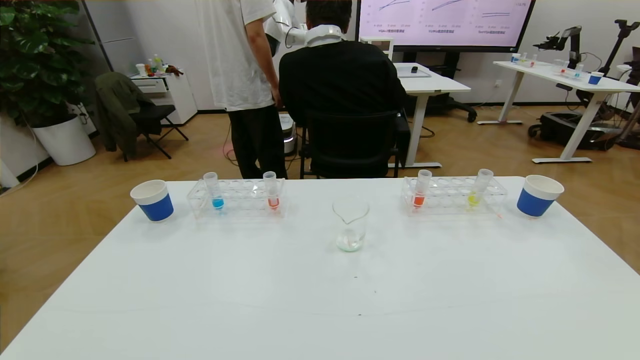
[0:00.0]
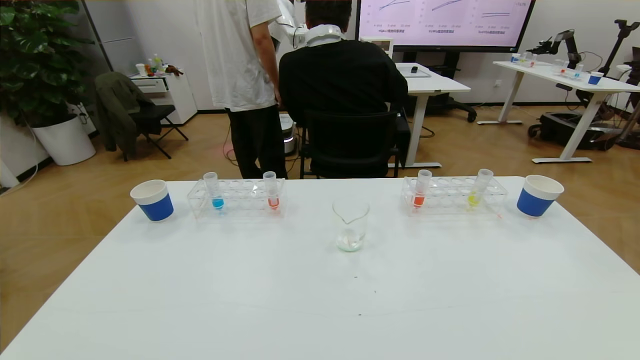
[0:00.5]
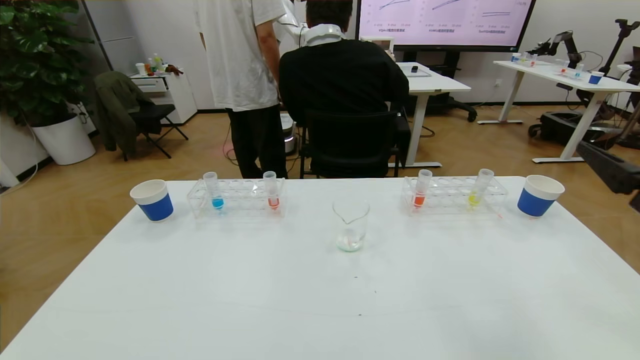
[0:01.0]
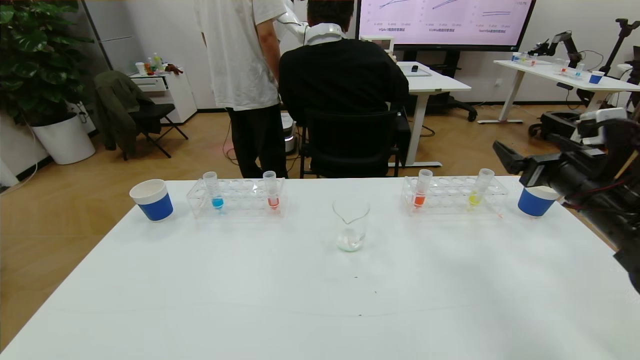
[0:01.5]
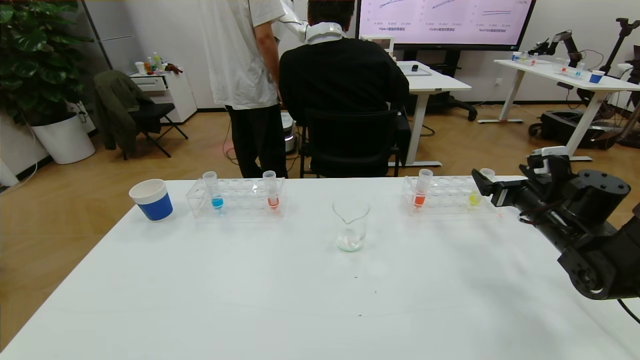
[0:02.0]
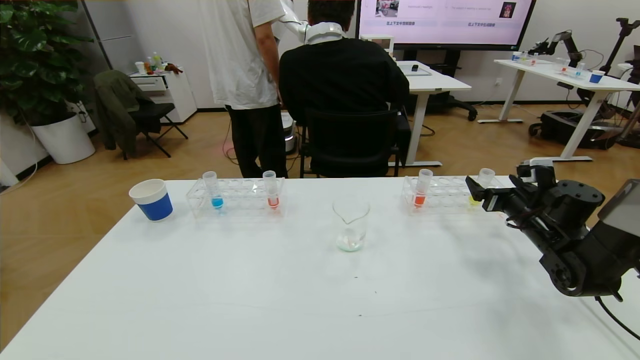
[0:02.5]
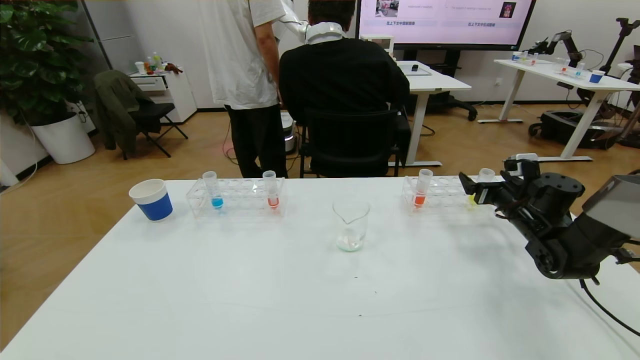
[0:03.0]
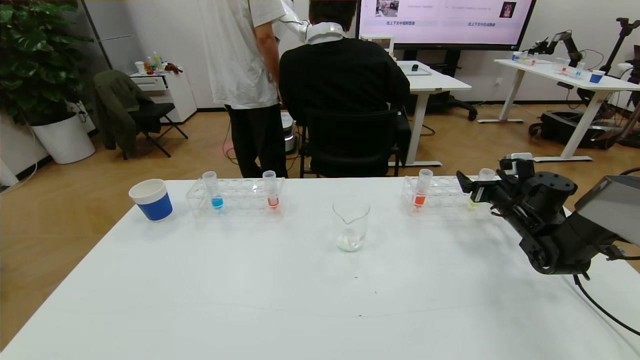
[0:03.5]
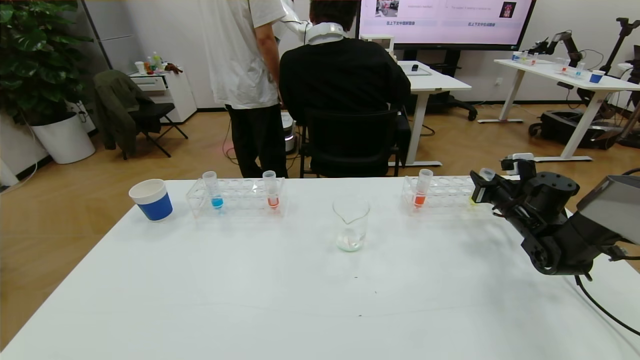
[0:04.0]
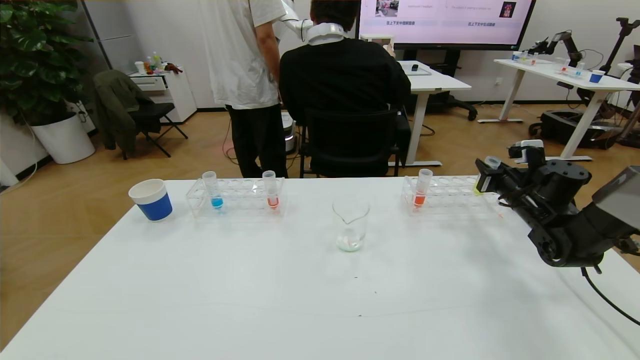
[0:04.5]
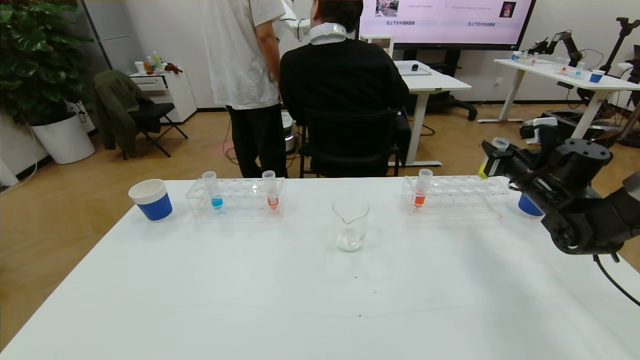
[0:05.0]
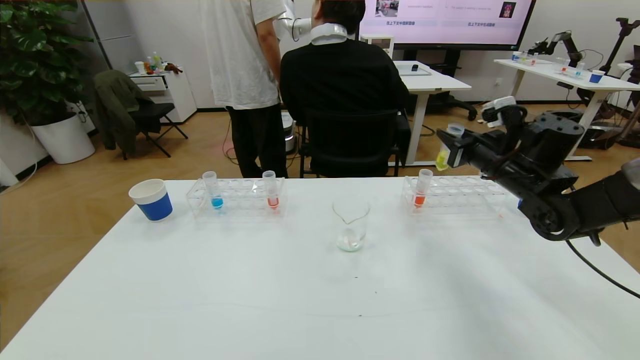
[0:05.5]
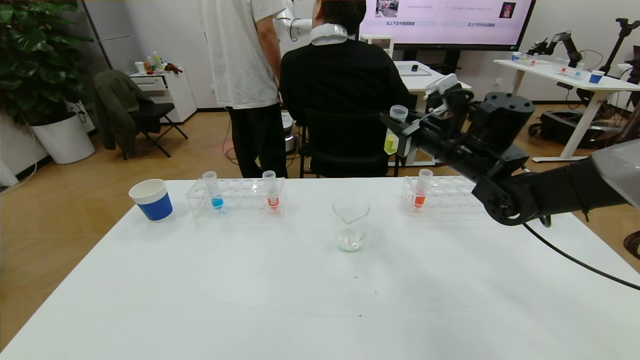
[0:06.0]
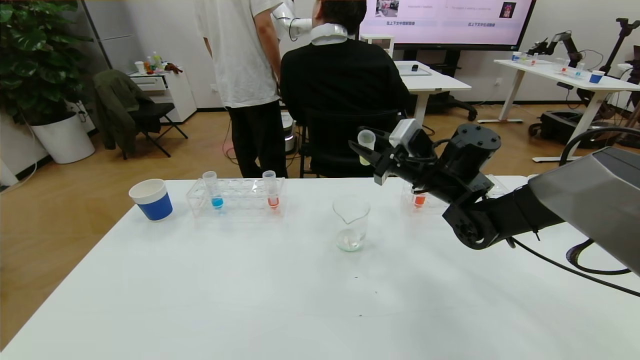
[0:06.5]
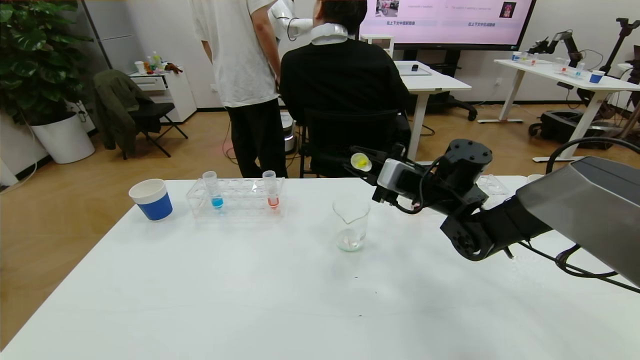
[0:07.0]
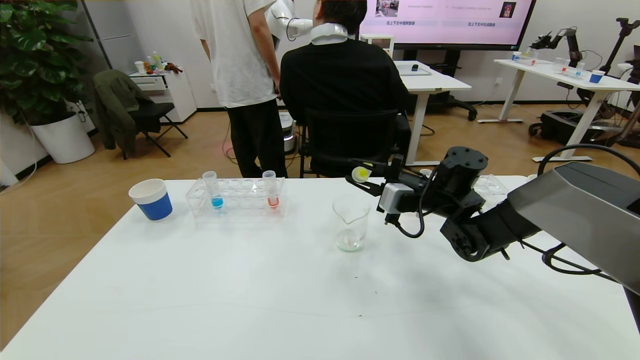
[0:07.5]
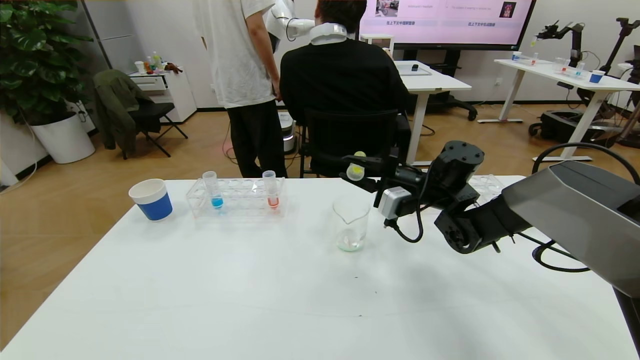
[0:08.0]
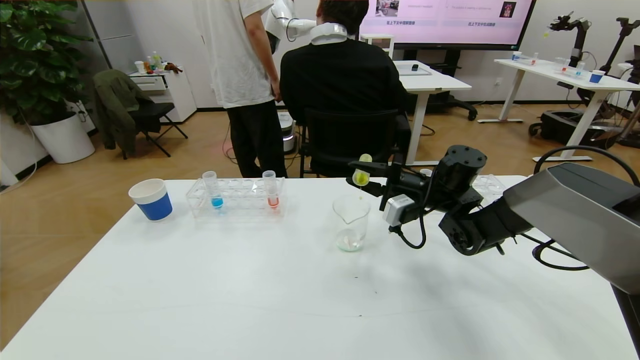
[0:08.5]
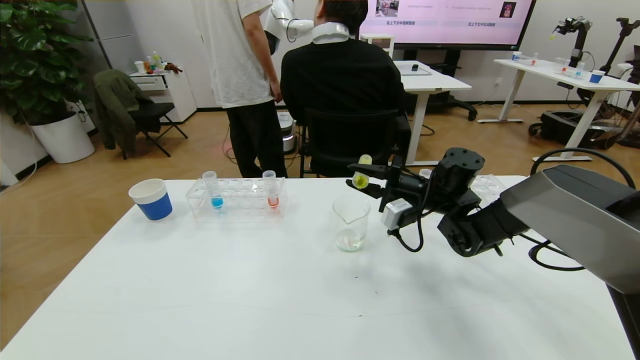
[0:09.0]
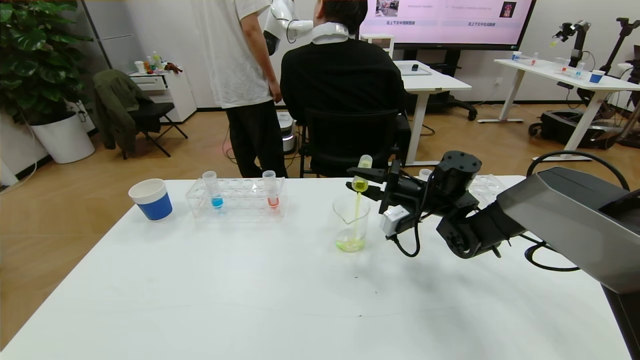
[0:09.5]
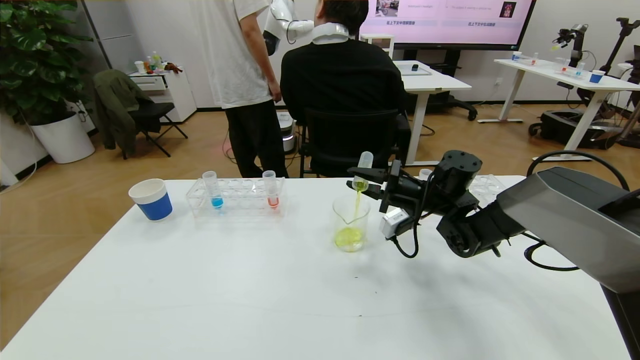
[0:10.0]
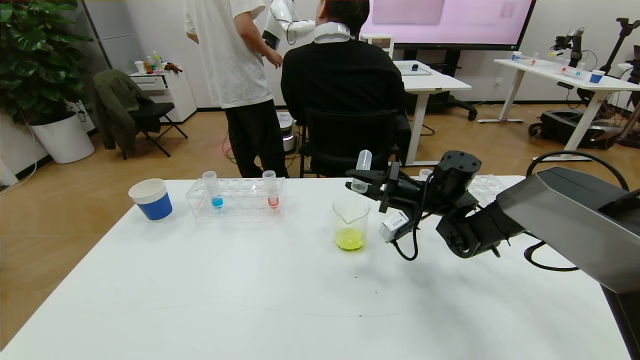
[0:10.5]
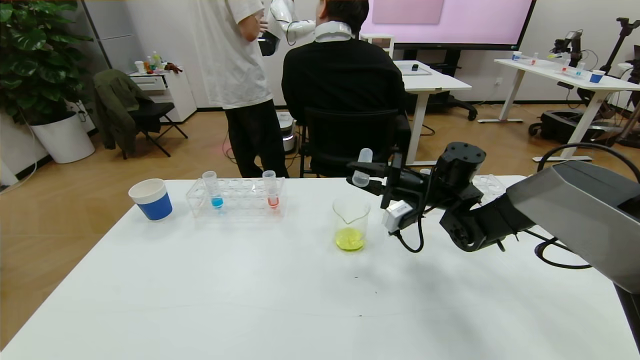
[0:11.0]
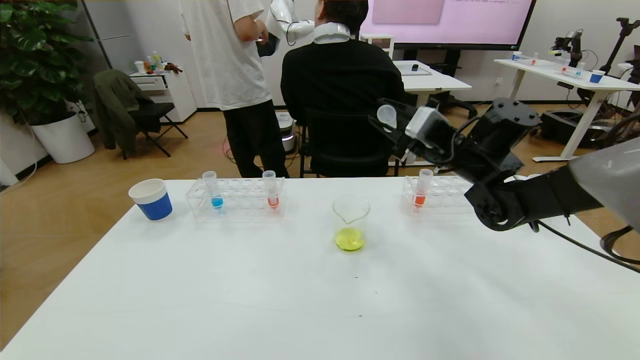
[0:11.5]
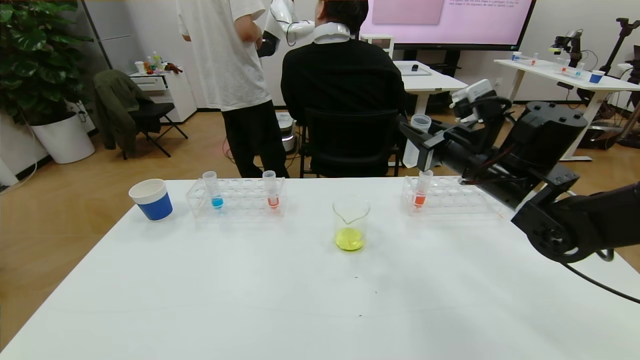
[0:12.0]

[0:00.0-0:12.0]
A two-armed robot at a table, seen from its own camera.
Task of the whole recording: pick up the test tube with yellow pigment and the test tube with blue pigment by grippers and pour them into the beaker.
0:00.0 to 0:02.0: The right gripper shifts about 40 cm forward.
0:02.0 to 0:04.0: The right gripper moves forward, approximately 5 cm, and closes up.
0:04.0 to 0:06.0: The right gripper heads to the left and upward, covering about 25 cm.
0:06.0 to 0:08.0: The right gripper is displaced downward by about 10 cm.
0:08.0 to 0:10.0: There are only small adjustments of the grippers.
0:10.0 to 0:12.0: The right gripper moves upward and backward, approximately 15 cm.

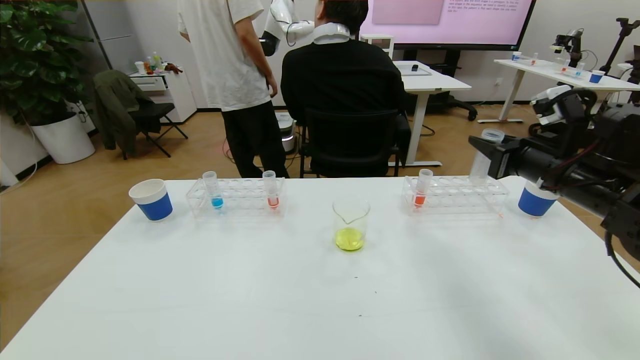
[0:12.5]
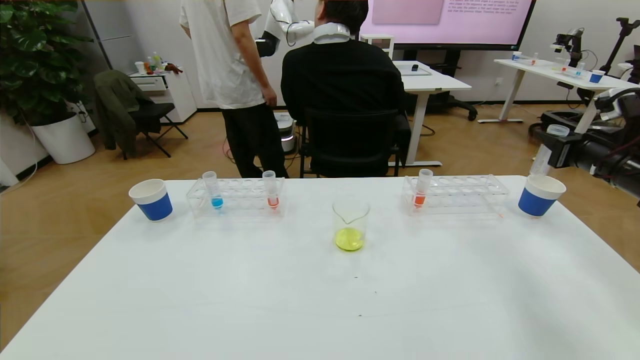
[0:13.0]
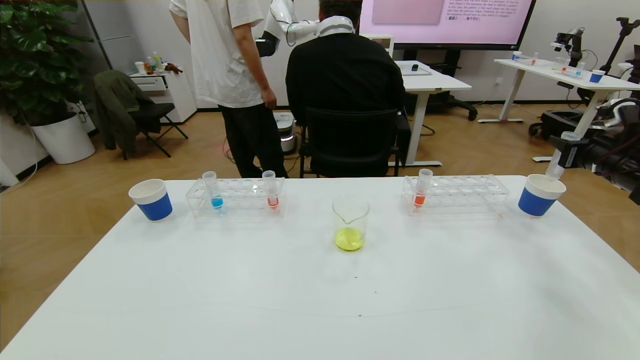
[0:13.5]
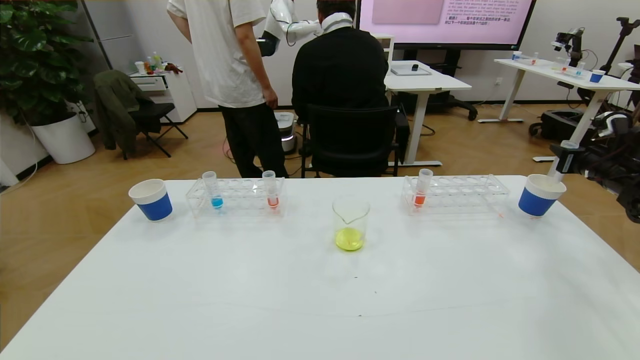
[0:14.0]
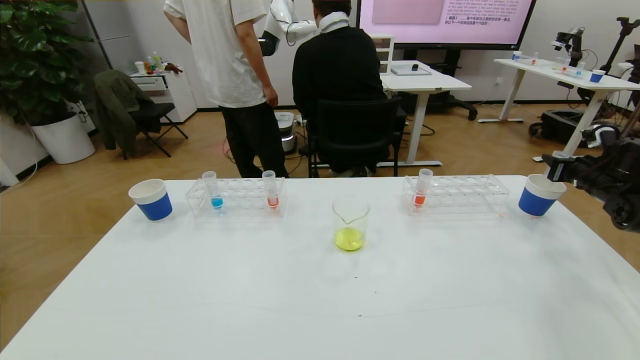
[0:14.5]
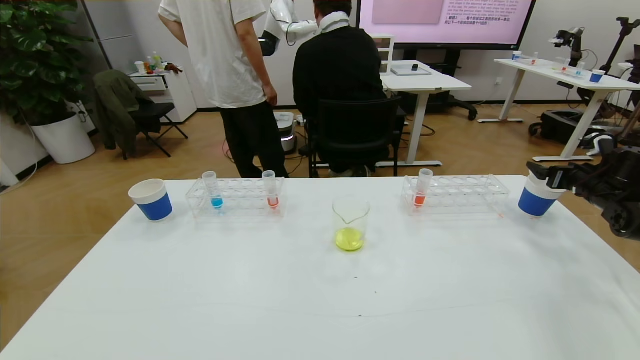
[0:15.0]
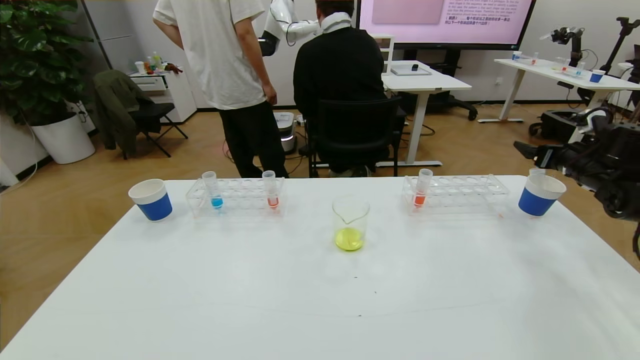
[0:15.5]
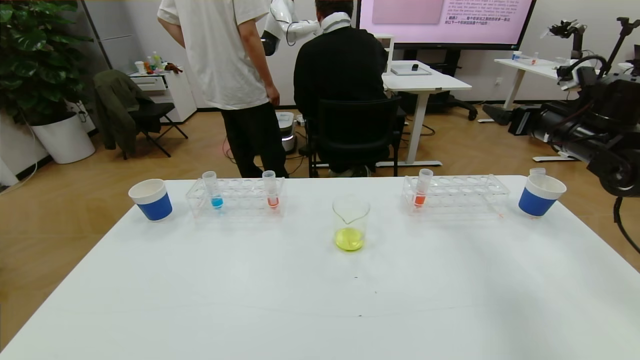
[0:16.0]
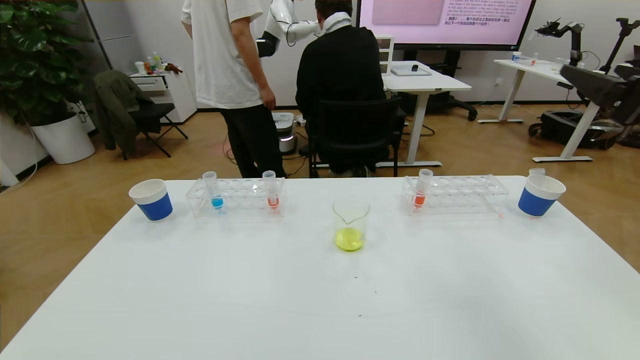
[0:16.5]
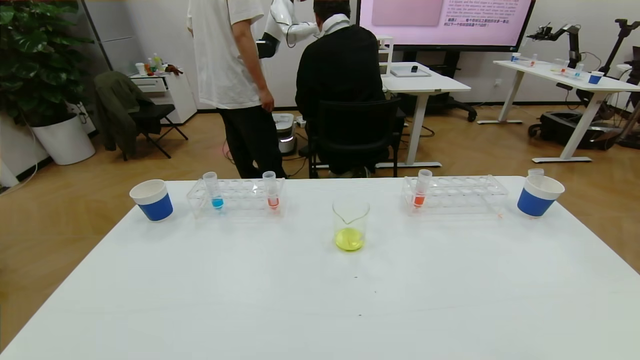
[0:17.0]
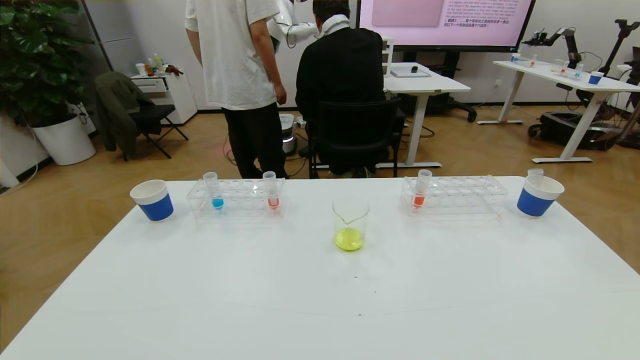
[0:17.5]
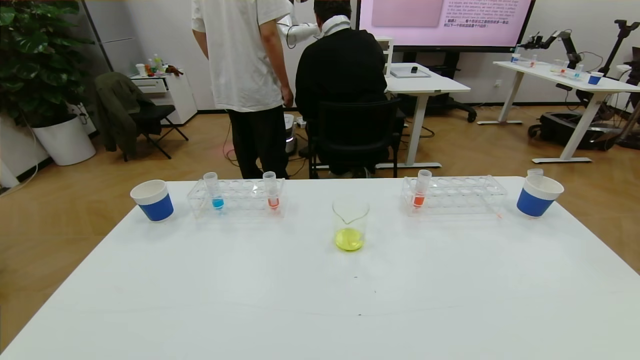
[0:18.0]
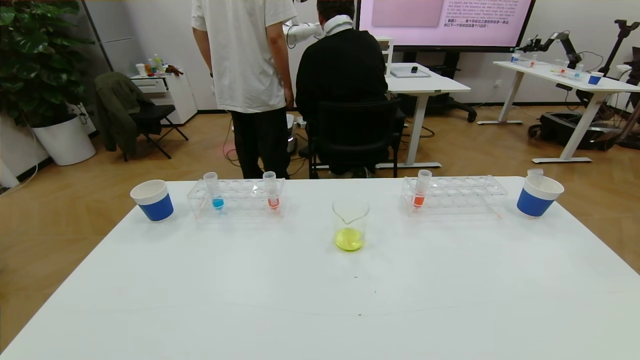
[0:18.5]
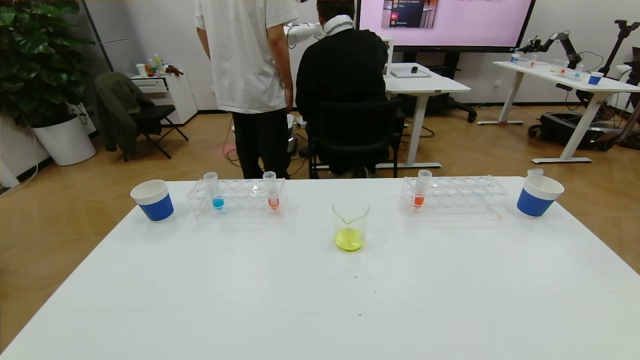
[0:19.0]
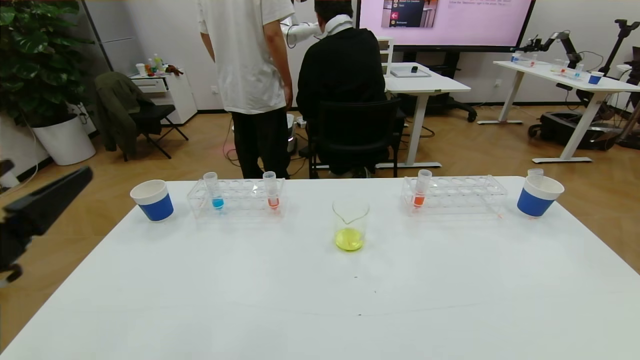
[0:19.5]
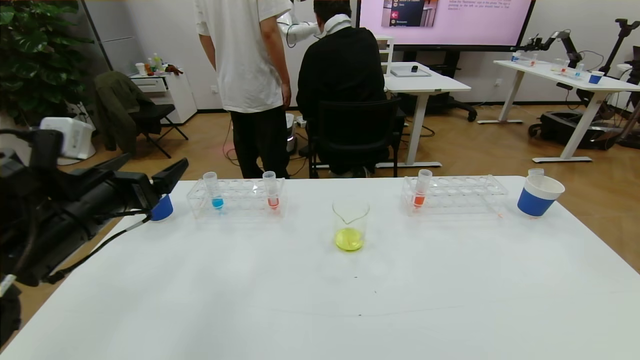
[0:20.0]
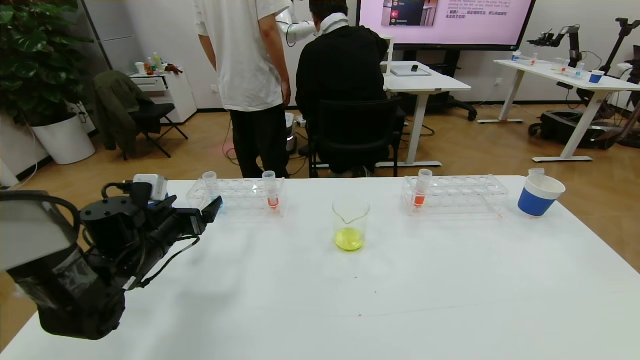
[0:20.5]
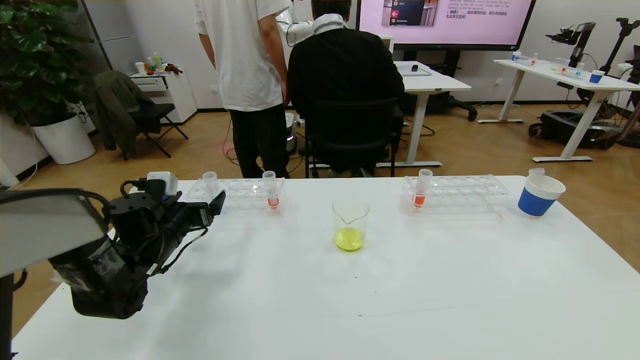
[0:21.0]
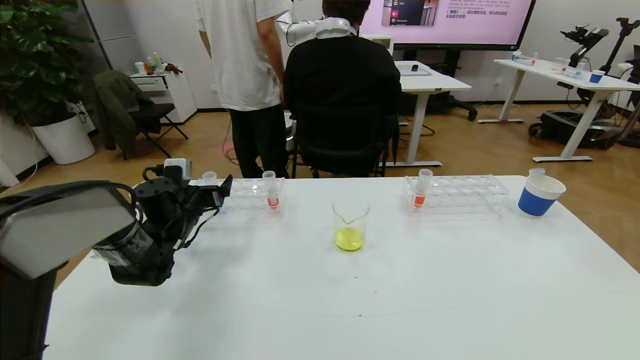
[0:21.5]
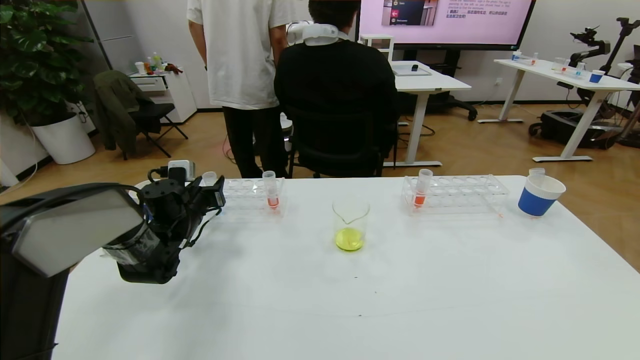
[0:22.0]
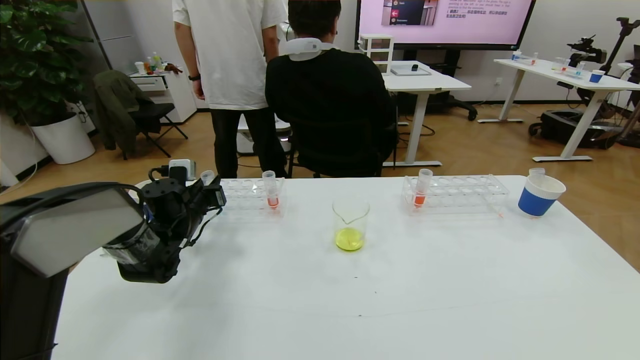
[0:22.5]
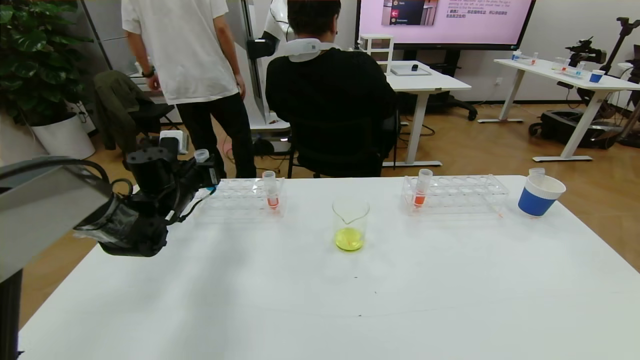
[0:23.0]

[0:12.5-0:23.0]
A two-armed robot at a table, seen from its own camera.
Task of the whole recording: pick up the test tube with yellow pigment and the test tube with blue pigment by grippers and pour them into the beaker.
Step, 0:12.5 to 0:18.5: Pour the yellow reagent into the graduated cylinder and place the test tube into the paper cup.
0:12.5 to 0:14.5: The right gripper is displaced to the right, forward and downward by some 25 cm.
0:14.5 to 0:16.5: The right gripper goes about 30 cm backward, upward and to the left, and opens its fingers.
0:16.5 to 0:19.0: The left gripper is displaced upward by roughly 10 cm. Meanwhile the right gripper is displaced backward and downward by roughly 35 cm.
0:19.0 to 0:21.0: The left gripper moves forward, approximately 40 cm.
0:21.0 to 0:23.0: The left gripper is displaced forward and upward by about 10 cm, and closes its fingers.
